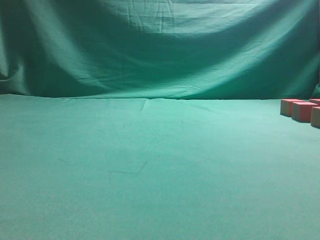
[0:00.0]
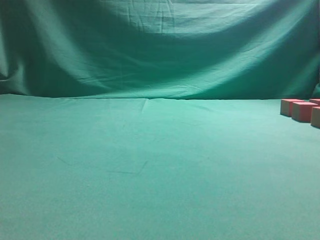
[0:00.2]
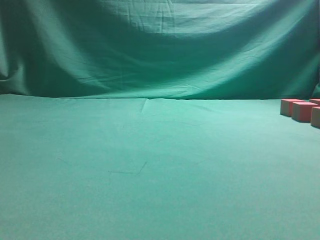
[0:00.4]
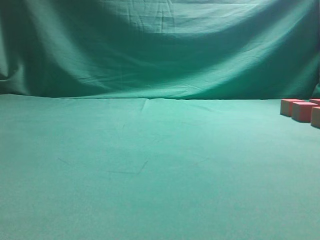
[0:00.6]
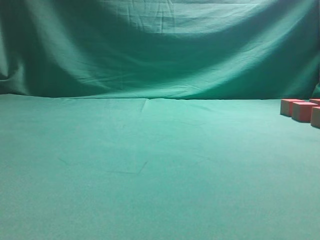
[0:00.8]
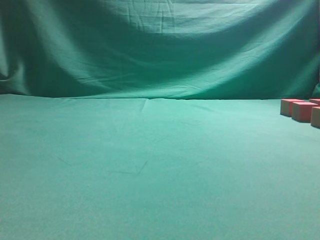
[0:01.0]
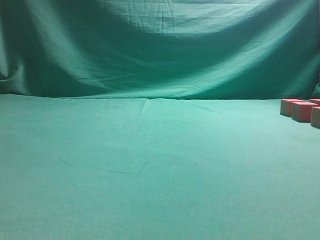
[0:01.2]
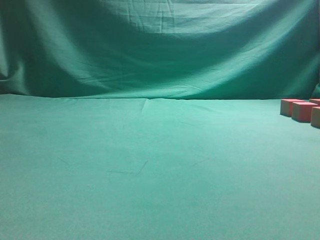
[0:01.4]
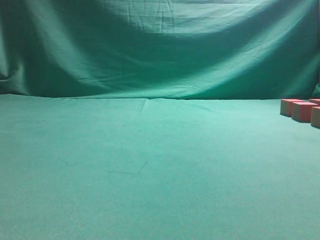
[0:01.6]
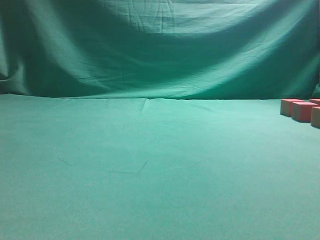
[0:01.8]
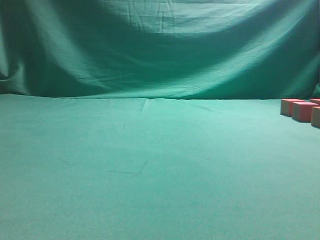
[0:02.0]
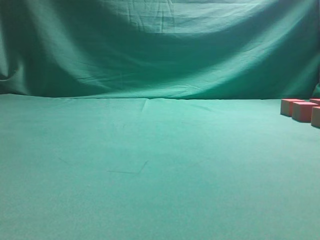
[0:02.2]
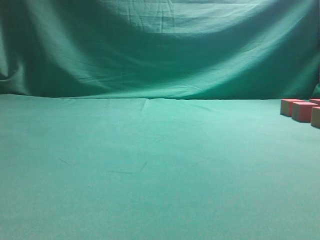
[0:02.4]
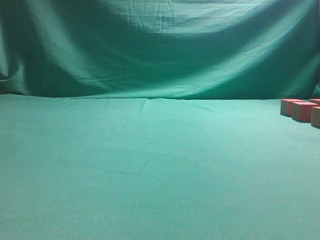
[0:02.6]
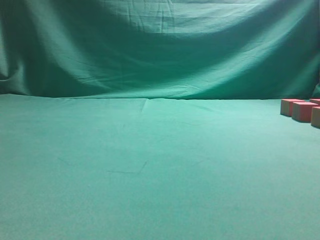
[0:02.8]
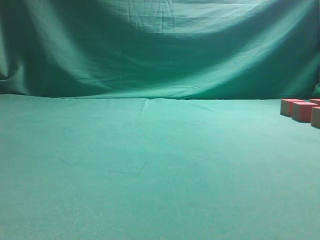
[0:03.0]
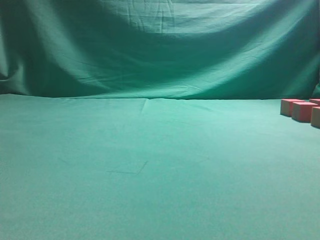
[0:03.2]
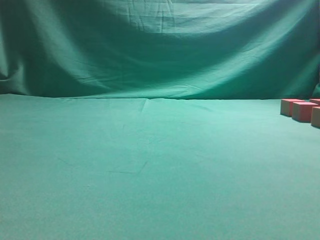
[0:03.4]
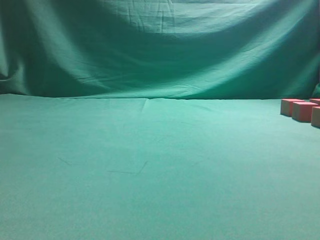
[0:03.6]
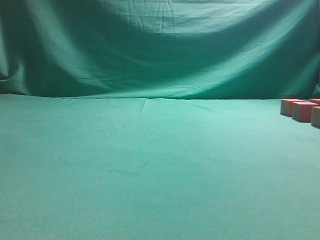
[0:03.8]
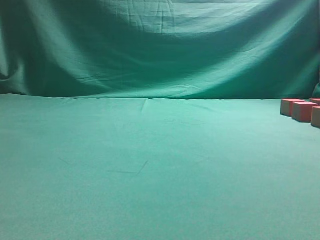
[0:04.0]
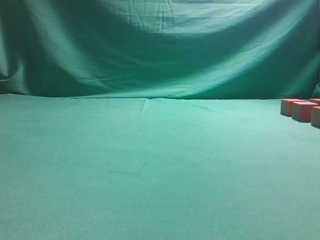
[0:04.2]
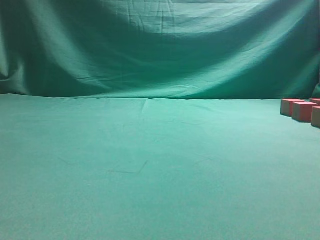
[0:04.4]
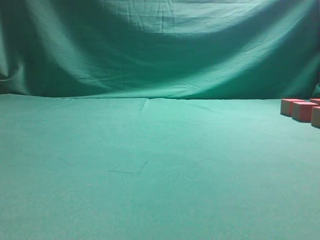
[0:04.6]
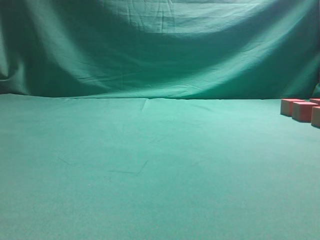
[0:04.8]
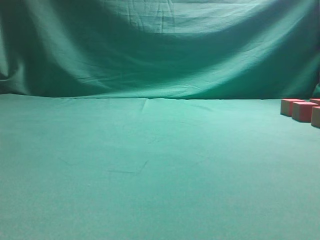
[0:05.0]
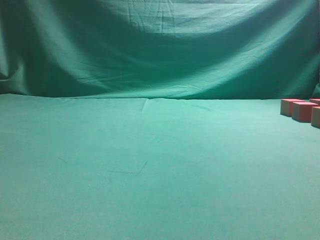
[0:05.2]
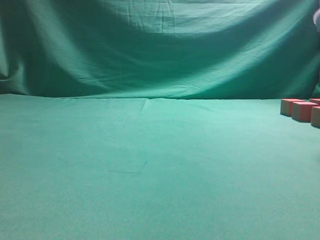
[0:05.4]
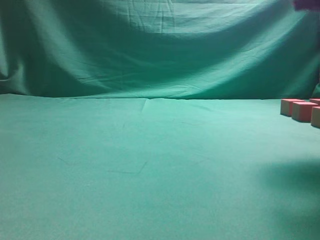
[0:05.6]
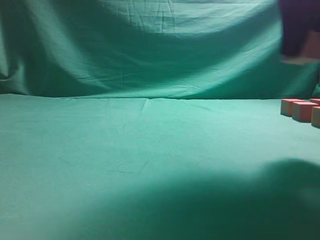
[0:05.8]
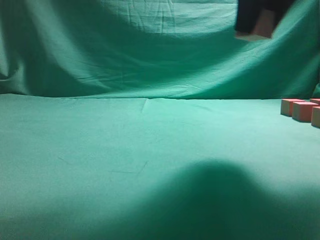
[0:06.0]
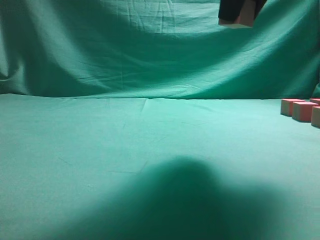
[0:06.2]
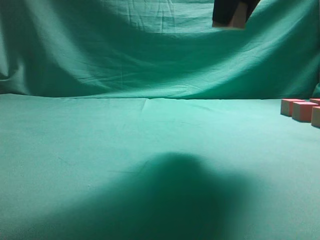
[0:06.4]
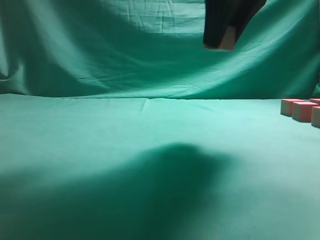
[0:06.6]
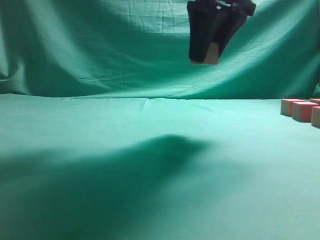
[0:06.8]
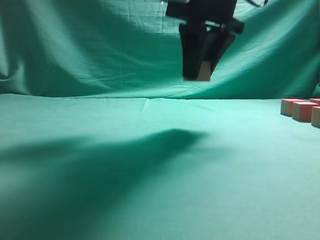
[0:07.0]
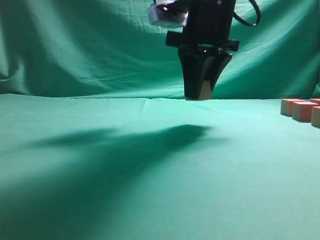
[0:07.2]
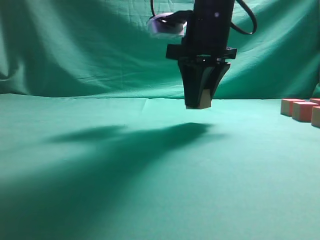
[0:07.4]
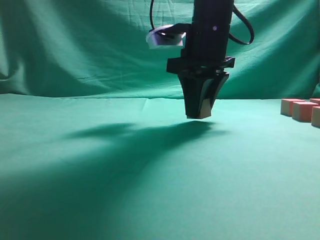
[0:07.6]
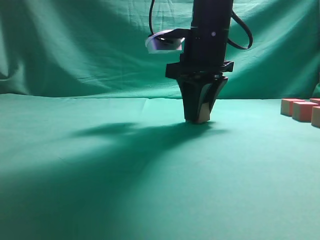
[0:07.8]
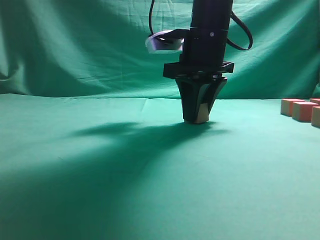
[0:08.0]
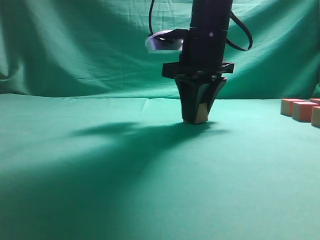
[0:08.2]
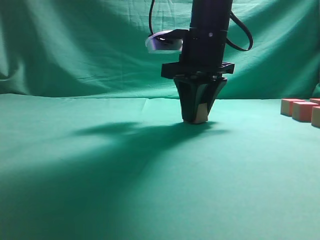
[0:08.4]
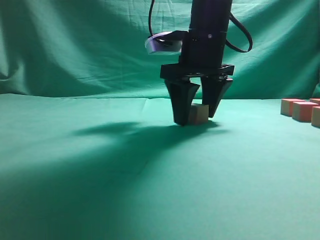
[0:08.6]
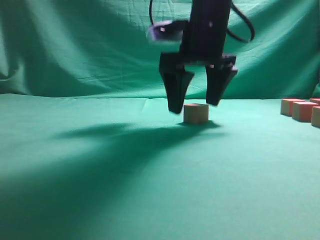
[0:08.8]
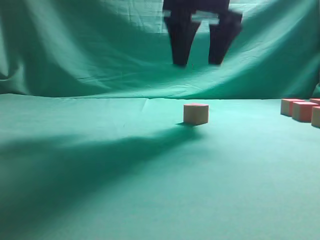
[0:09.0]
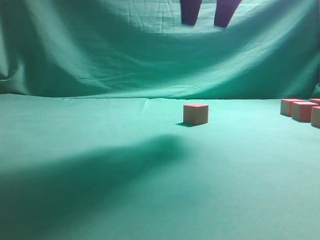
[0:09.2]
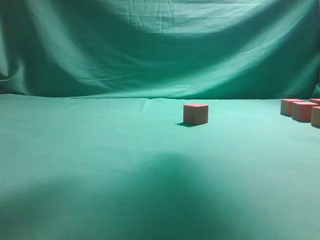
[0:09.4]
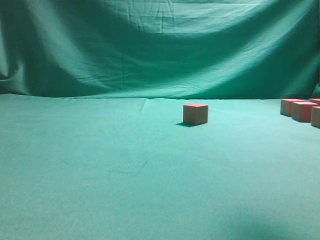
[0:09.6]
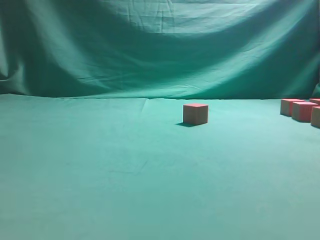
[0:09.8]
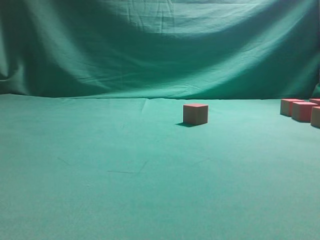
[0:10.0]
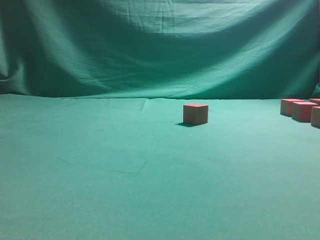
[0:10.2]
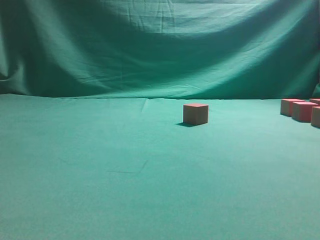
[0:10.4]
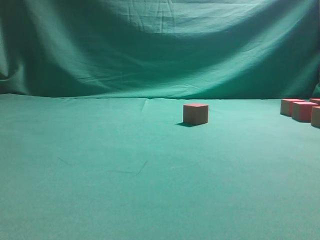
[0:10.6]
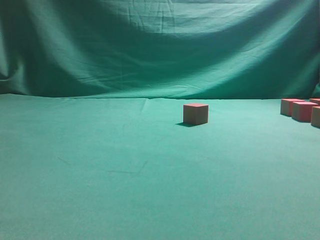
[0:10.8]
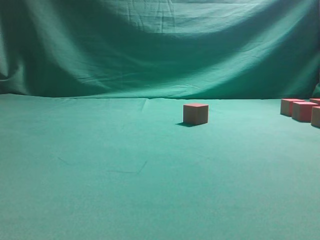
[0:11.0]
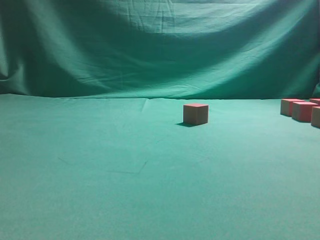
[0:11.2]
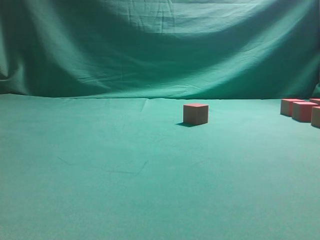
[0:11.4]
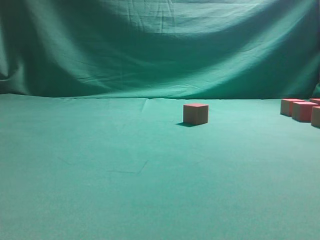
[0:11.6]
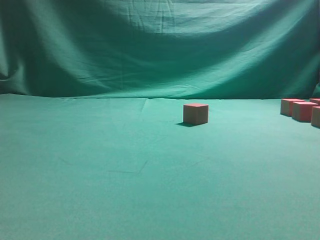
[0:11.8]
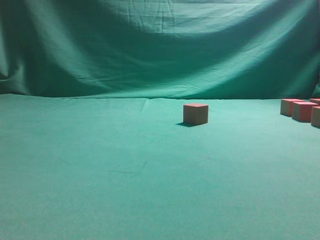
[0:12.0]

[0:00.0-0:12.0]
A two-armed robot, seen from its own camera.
Task of the whole recording: pick up the multiple cubes in two columns one by one and place them in another position on the table.
Step, 0:05.6 to 0:09.0: Place the block at the correct position to assemble the letter S.
Step, 0:09.2 to 0:12.0: Pick up the block on the table.
0:04.4 to 0:06.0: The right gripper is displaced to the left and upward by approximately 15 cm, and closes.
0:06.0 to 0:07.6: The right gripper shifts roughly 15 cm forward, downward and to the left.
0:07.6 to 0:09.0: The right gripper goes some 5 cm upward, and opens up.
0:09.0 to 0:10.4: The right gripper travels to the right and backward by roughly 25 cm.

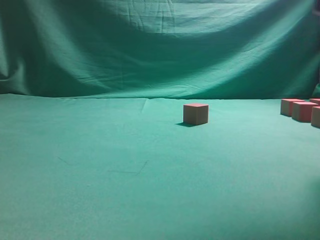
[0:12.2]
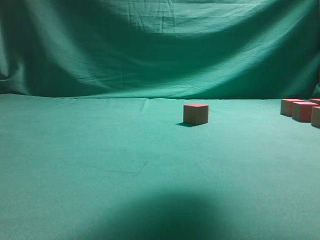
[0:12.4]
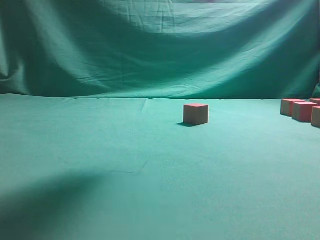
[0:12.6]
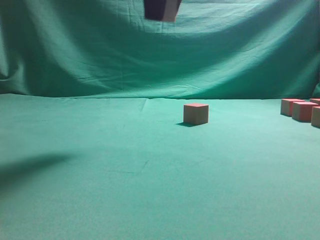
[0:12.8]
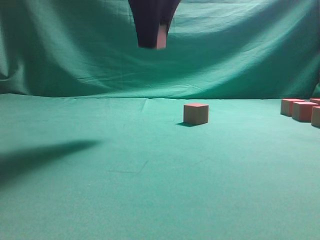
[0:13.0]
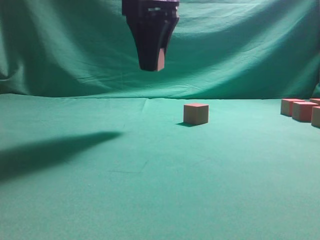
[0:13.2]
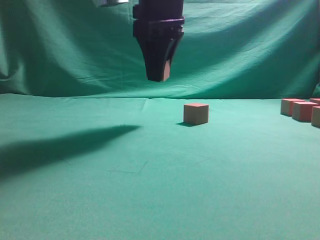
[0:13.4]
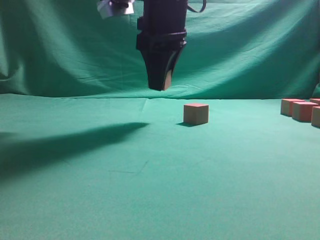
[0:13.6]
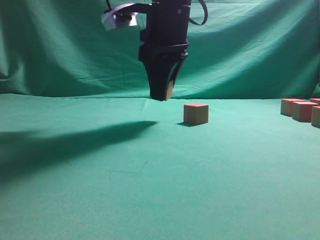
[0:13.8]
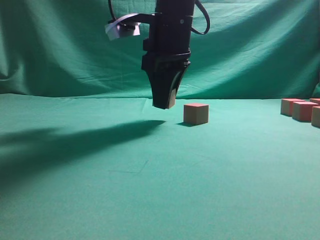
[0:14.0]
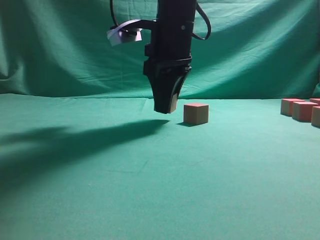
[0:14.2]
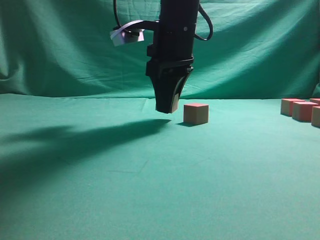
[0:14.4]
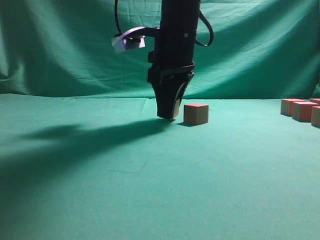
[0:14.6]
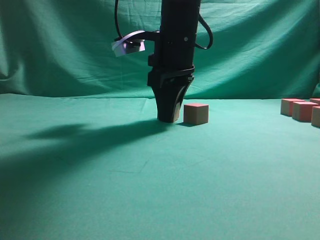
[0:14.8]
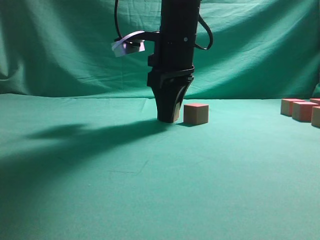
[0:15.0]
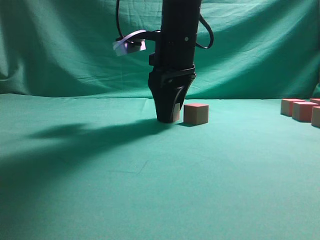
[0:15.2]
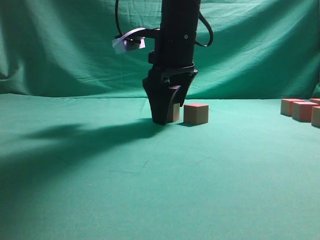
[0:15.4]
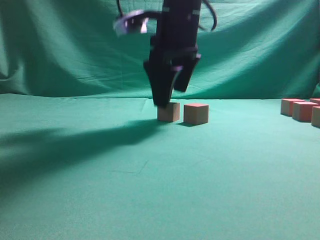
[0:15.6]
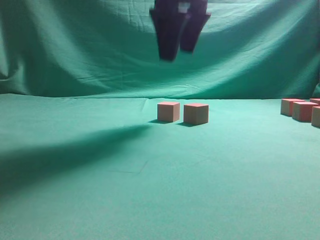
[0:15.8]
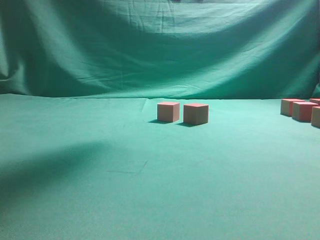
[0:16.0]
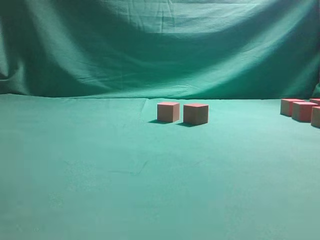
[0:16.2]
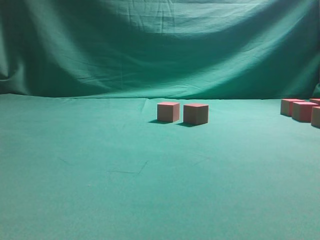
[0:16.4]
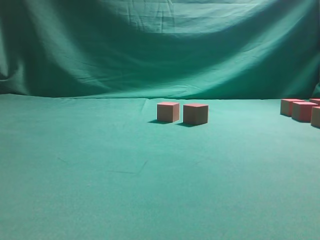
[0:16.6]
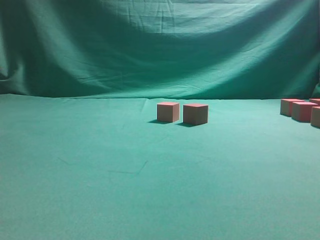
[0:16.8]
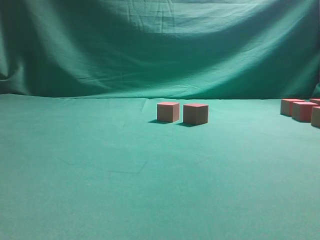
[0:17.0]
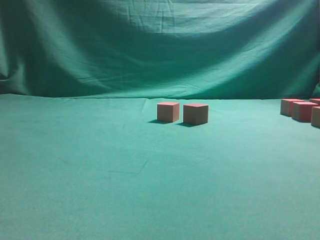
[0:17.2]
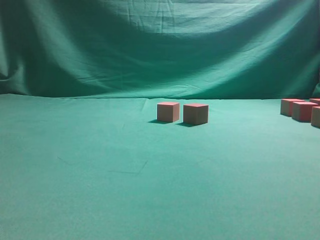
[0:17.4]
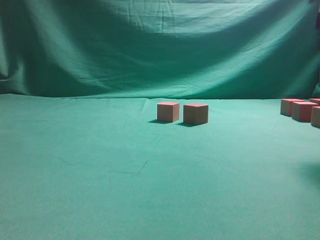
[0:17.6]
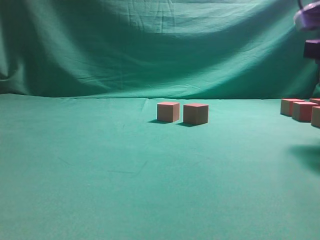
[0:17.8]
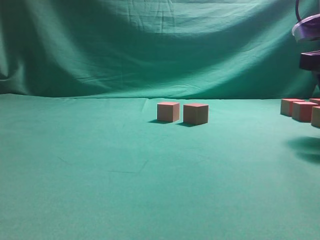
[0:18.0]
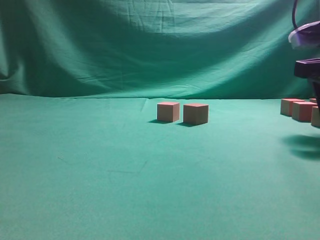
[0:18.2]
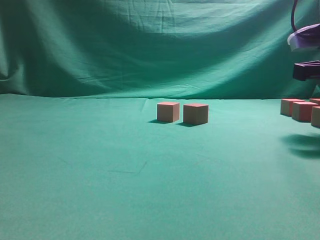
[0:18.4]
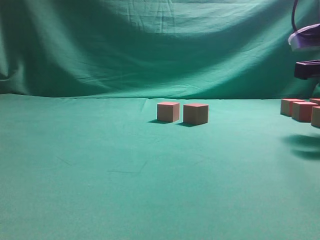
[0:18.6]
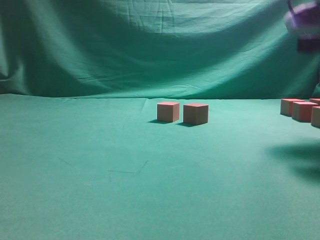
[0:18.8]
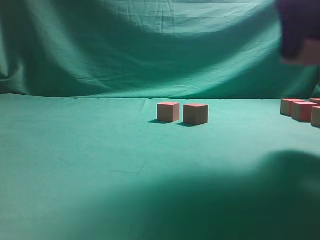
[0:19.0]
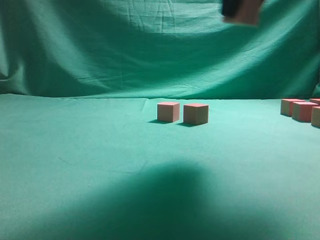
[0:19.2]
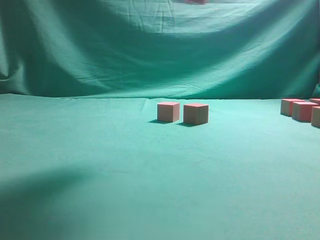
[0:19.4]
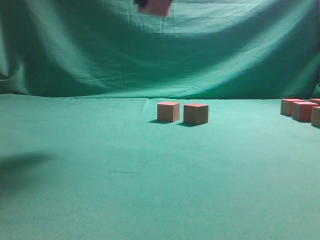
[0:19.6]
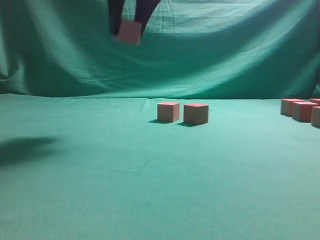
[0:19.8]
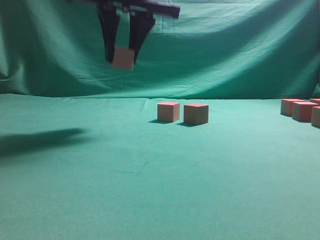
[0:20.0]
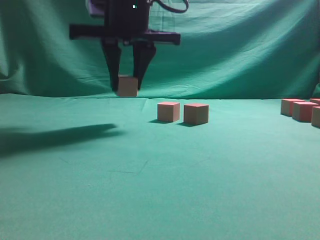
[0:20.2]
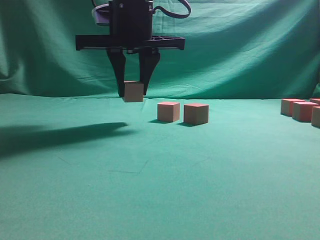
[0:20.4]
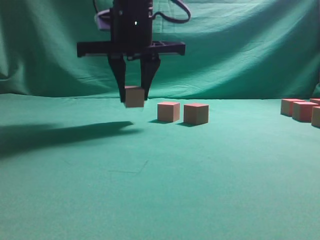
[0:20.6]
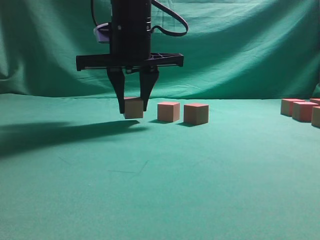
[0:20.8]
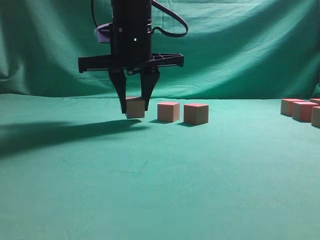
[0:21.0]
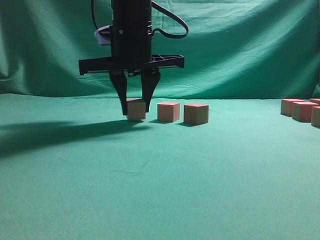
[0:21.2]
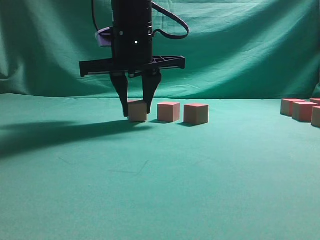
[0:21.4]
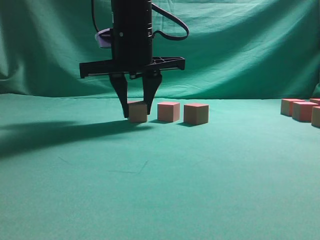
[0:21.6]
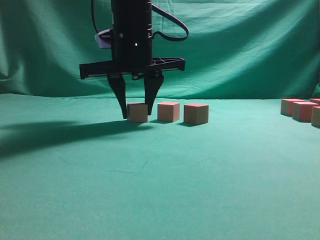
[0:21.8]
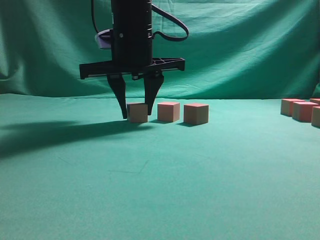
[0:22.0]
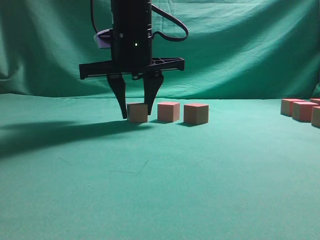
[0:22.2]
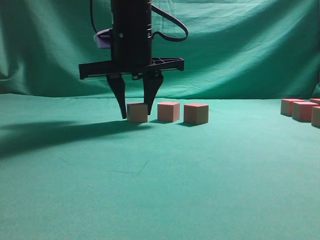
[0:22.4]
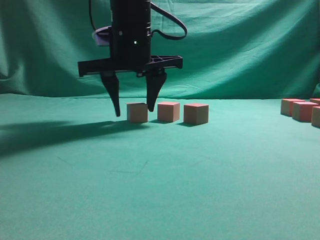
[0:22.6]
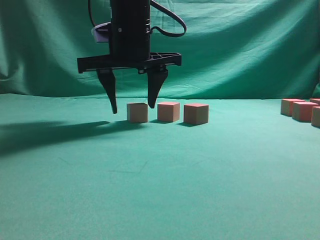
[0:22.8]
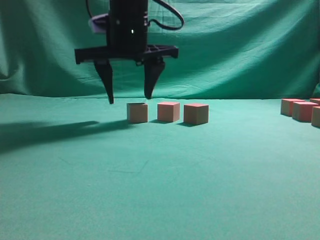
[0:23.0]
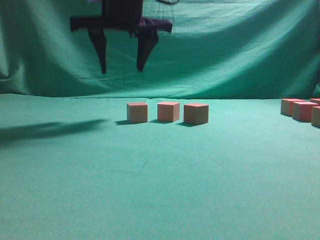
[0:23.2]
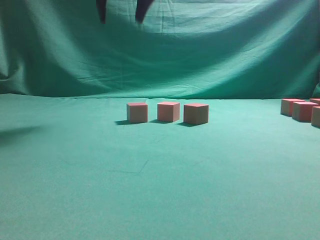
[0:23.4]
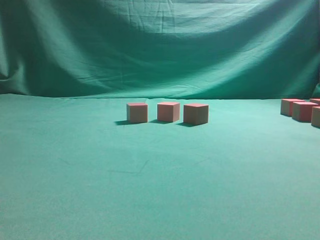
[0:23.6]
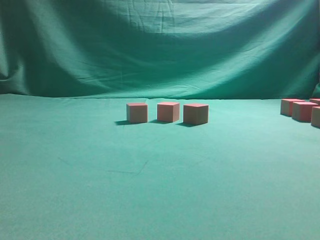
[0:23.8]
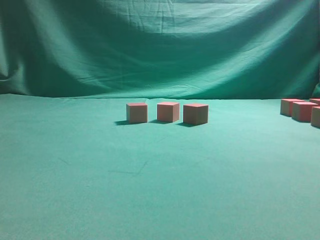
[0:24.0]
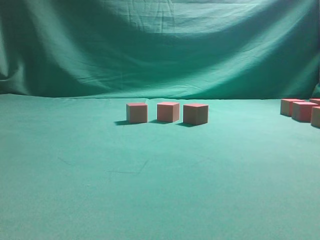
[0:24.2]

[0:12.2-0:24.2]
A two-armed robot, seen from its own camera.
Task of the whole recording: pick up the multiple cubes in two columns one by one and place them in another position on the table.
Step, 0:12.2 to 0:15.8: Place the block at the correct position to assemble the letter S.
Step, 0:16.0 to 0:18.8: Pick up the block on the table.
Step, 0:19.0 to 0:23.2: Place the block at the correct position to assemble the letter S.
0:12.2 to 0:13.8: The right gripper travels to the left, downward and forward by roughly 25 cm.
0:13.8 to 0:15.2: The grippers make only small movements.
0:15.2 to 0:16.6: The right gripper goes roughly 35 cm upward, to the right and backward.
0:16.6 to 0:18.2: The right gripper travels downward by approximately 30 cm.
0:18.2 to 0:19.8: The right gripper heads to the left and upward, covering about 30 cm, and closes up.
0:19.8 to 0:21.2: The right gripper moves downward, roughly 10 cm.
0:21.2 to 0:22.6: The two grippers keep their place.
0:22.6 to 0:24.2: The right gripper goes about 40 cm to the right, upward and backward.
